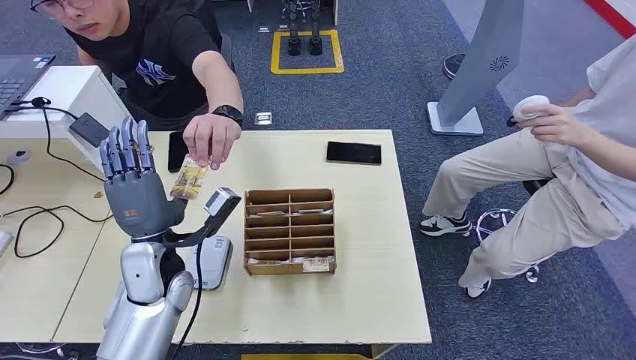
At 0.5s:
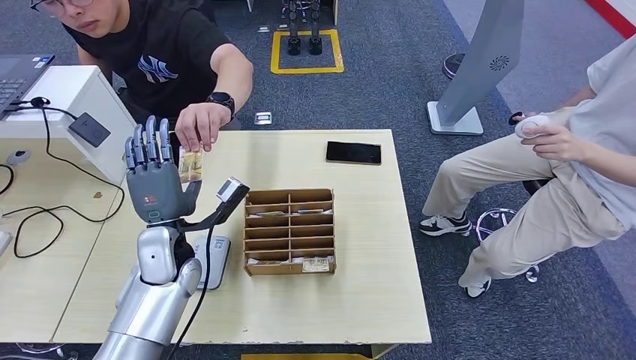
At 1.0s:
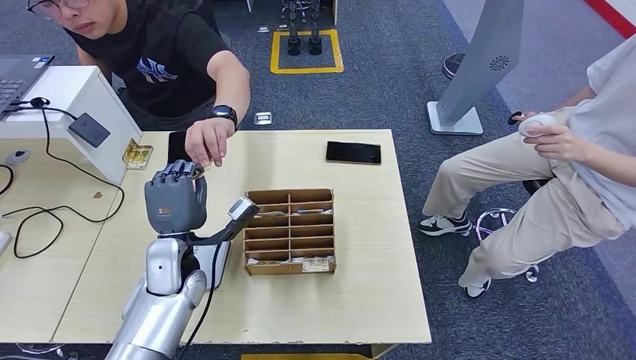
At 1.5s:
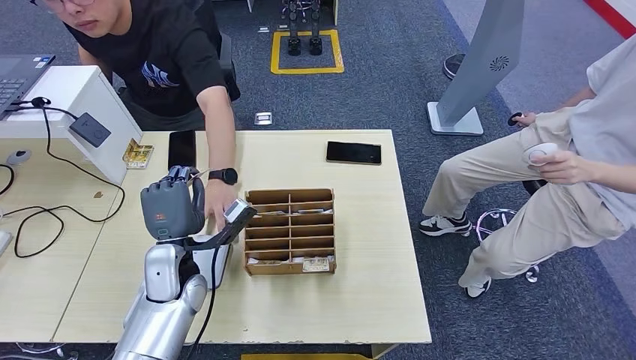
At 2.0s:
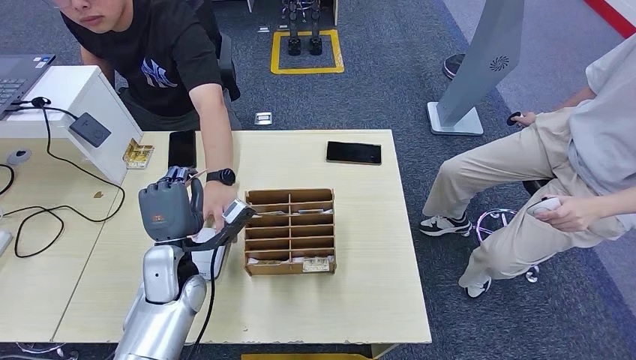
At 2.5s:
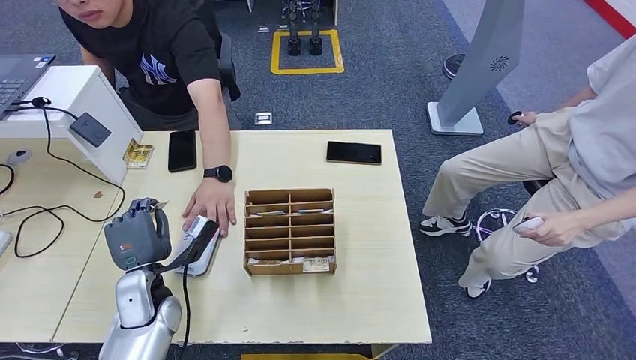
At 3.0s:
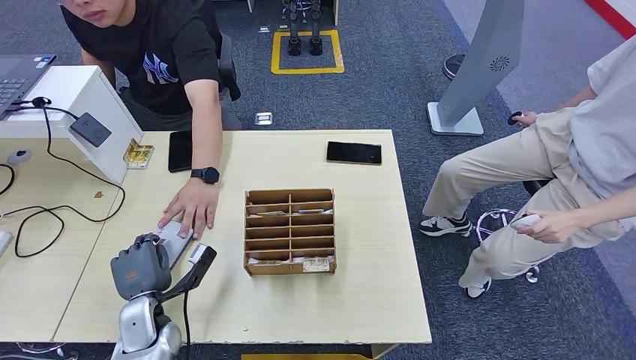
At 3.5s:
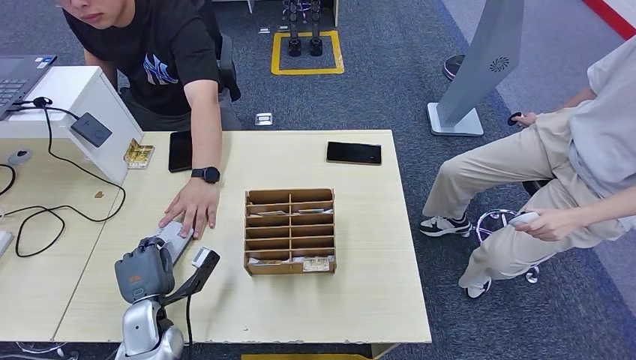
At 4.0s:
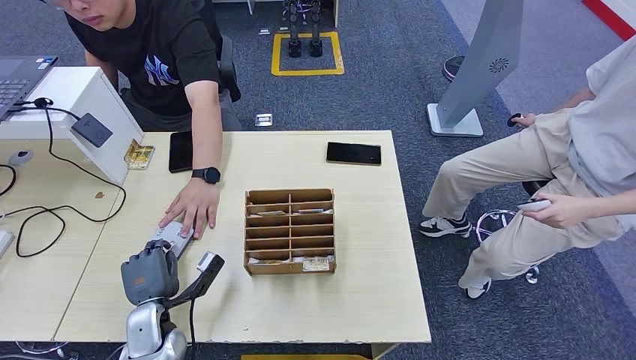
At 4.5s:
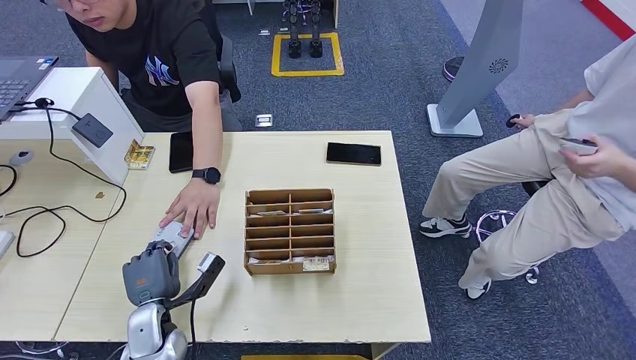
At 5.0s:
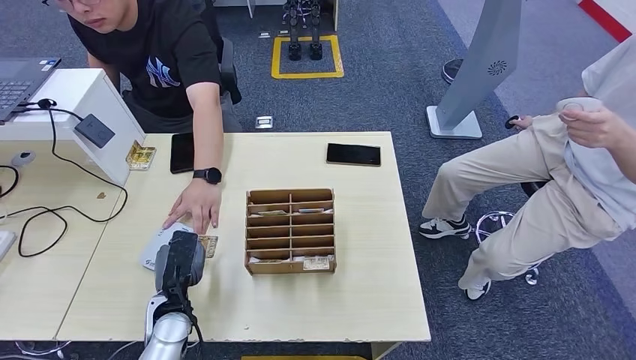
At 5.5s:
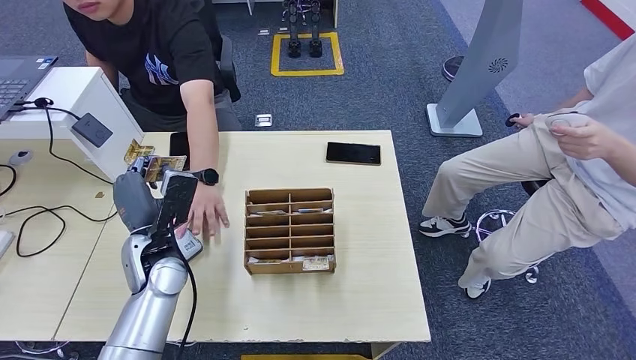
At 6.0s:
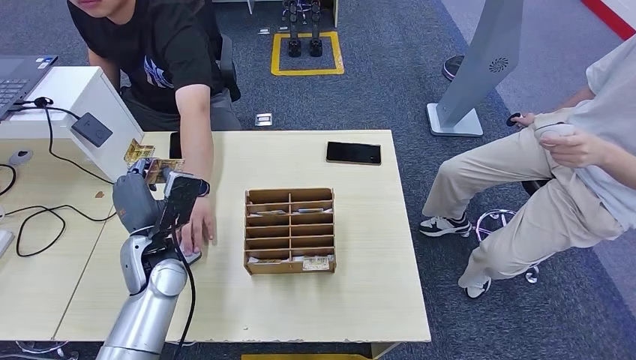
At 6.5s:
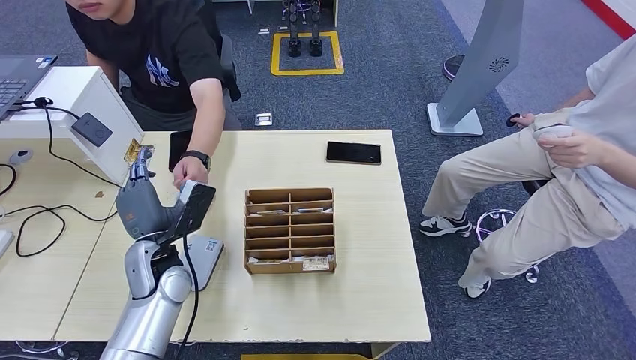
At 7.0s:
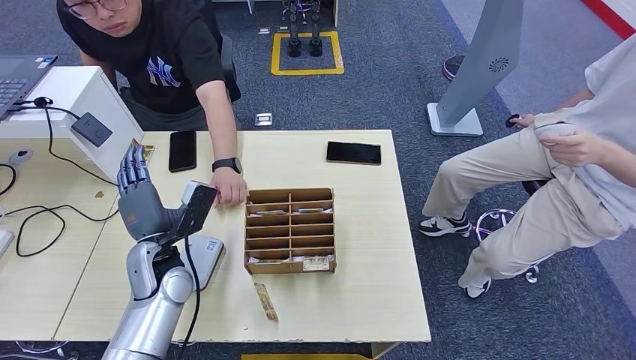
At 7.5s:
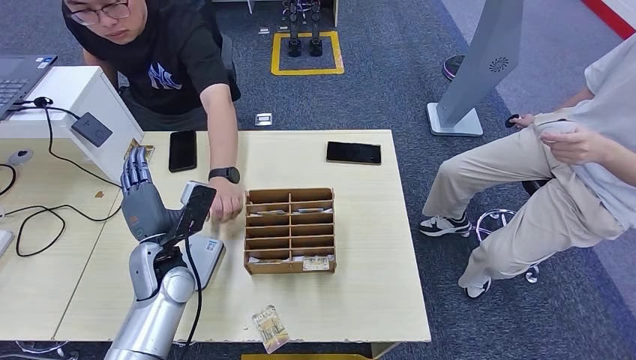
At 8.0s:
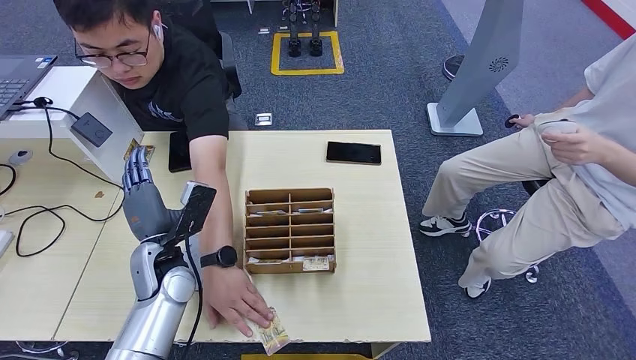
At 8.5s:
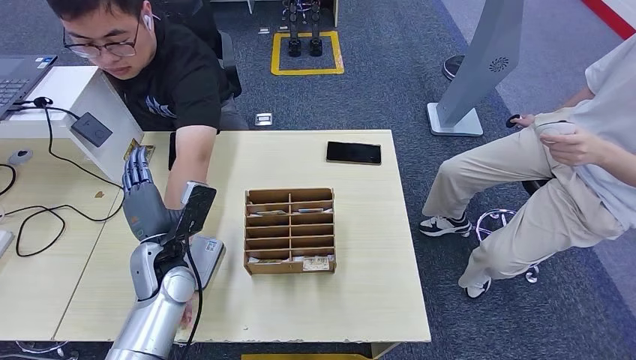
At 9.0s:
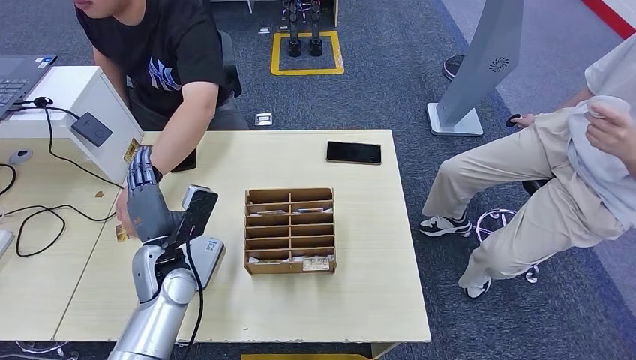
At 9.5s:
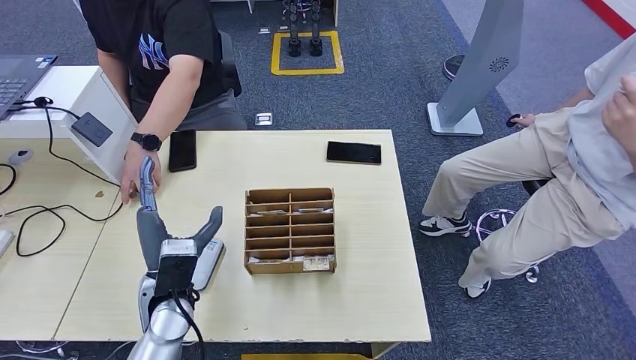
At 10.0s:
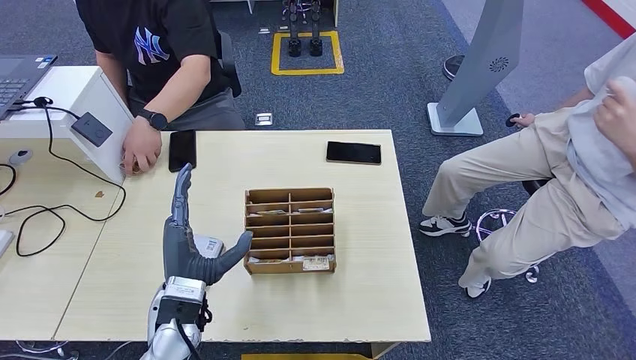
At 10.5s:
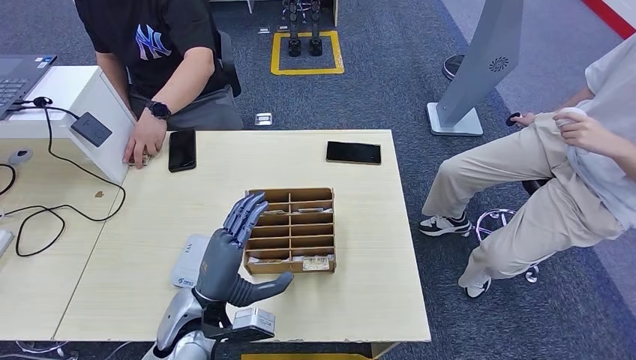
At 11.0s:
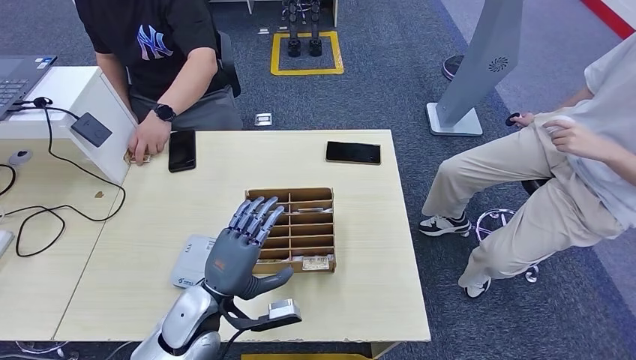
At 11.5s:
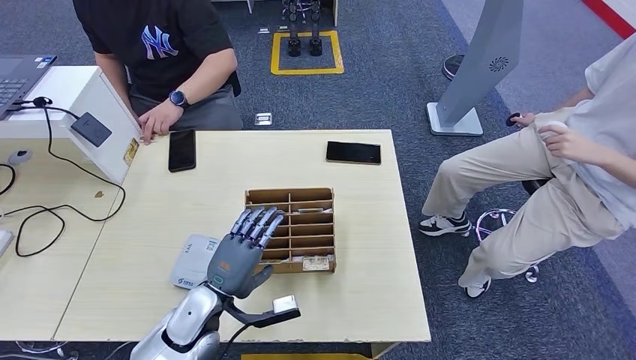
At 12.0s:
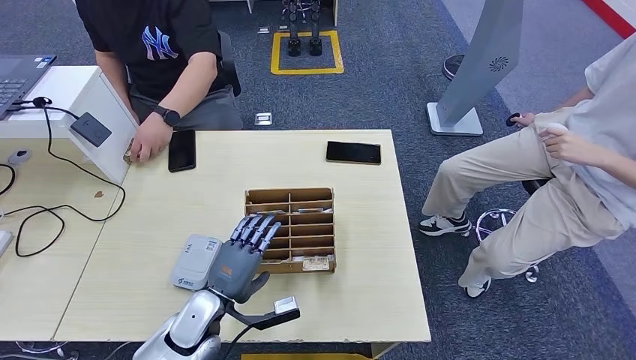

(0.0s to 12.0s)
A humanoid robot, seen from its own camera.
Step, 0.0s - 1.0s: Take the ID card from the person's hand.
Step, 1.5s - 4.0s: Place the ID card on the card reader.
Step, 4.5s - 6.0s: Hand the ID card to the person.
2.0s - 4.0s: The left hand goes some 15 cm downward, to the left and backward.
4.0s - 6.0s: The left hand shifts approximately 15 cm upward and forward.
6.0s - 8.0s: The hands stay close to where they were, moving slightly.
8.0s - 10.0s: The left hand moves backward and to the right, some 10 cm.
10.0s - 12.0s: The left hand travels downward by approximately 10 cm.

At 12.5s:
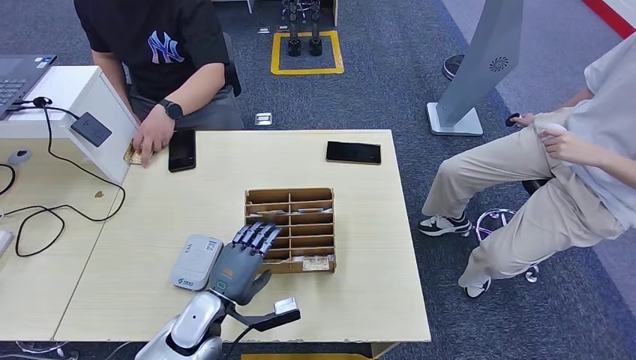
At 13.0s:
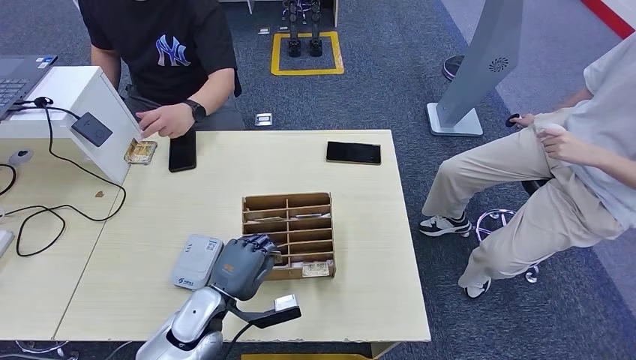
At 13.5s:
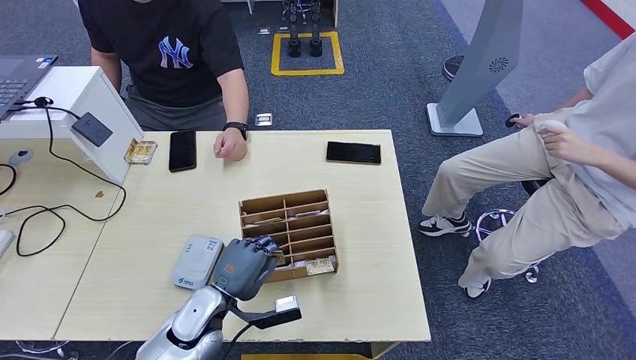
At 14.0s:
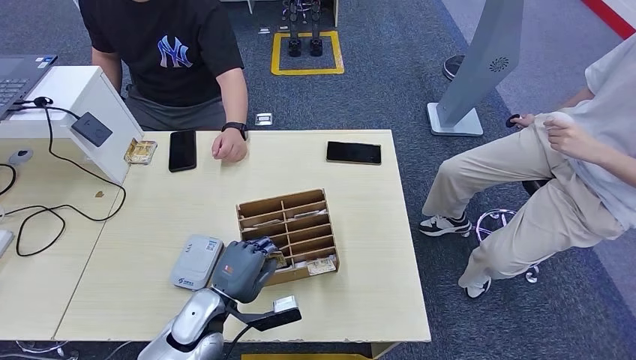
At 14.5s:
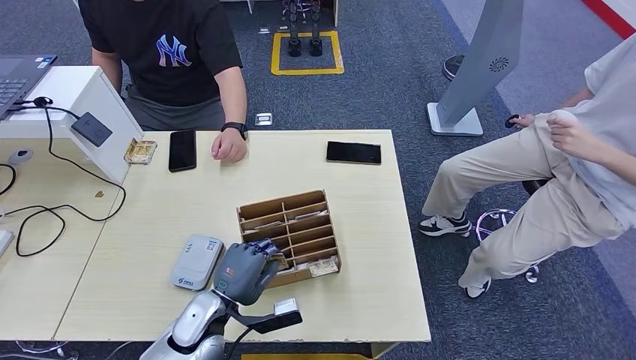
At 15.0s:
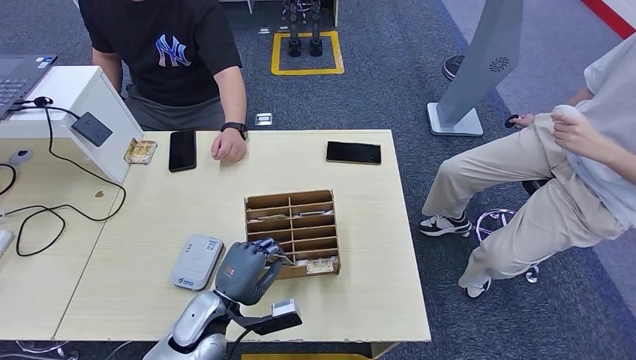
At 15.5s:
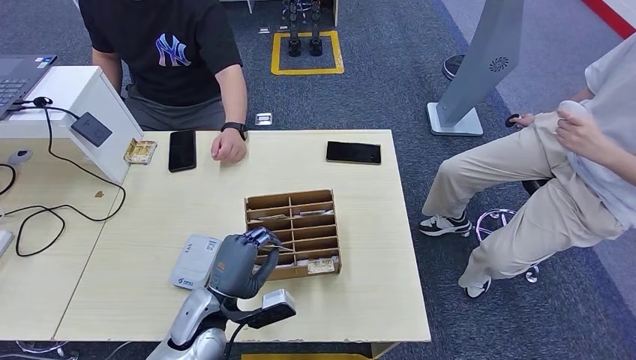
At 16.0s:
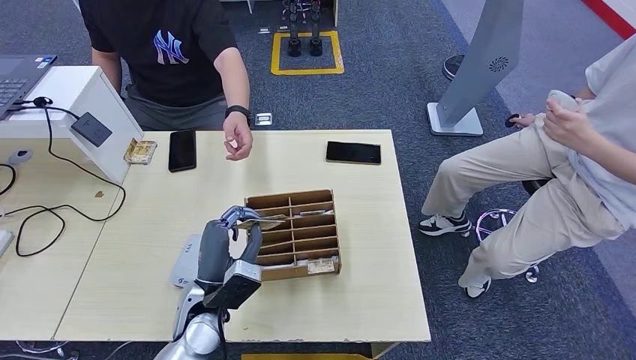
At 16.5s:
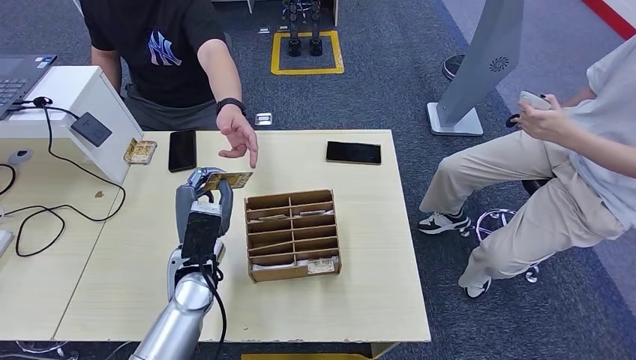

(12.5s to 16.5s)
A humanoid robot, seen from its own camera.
Step, 12.5s - 15.0s: Pick up the room key from the key card box.
Step, 15.5s - 16.5s: Hand the room key to the person.
12.5s - 14.5s: The hands move only a little.
14.5s - 16.5s: The left hand shifts some 10 cm upward and forward.
